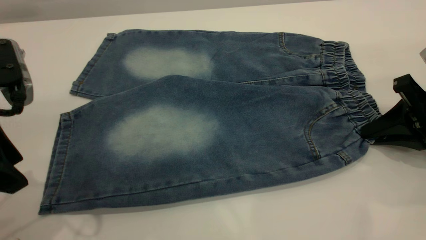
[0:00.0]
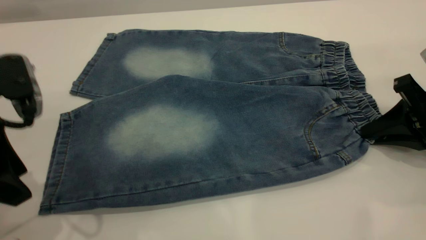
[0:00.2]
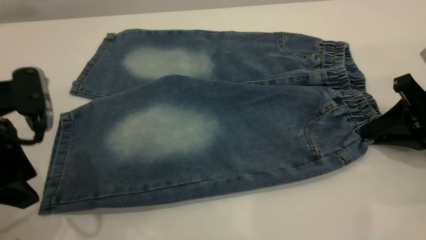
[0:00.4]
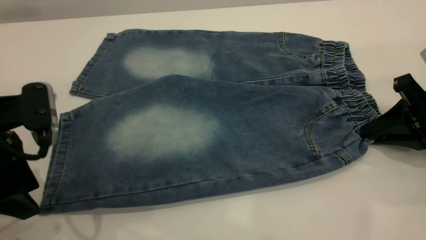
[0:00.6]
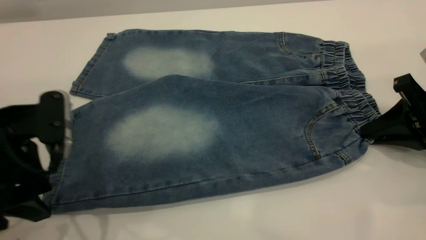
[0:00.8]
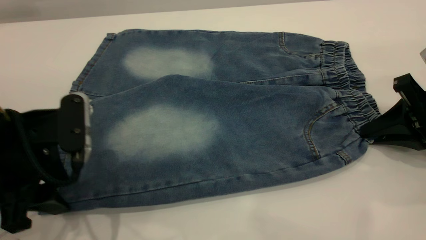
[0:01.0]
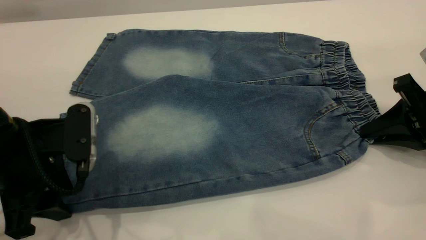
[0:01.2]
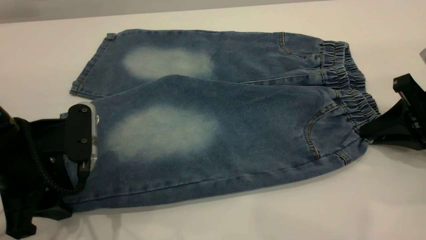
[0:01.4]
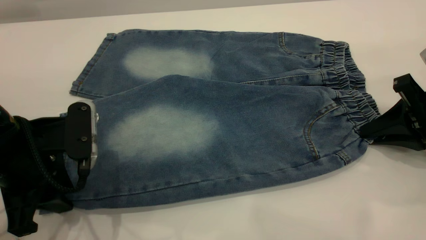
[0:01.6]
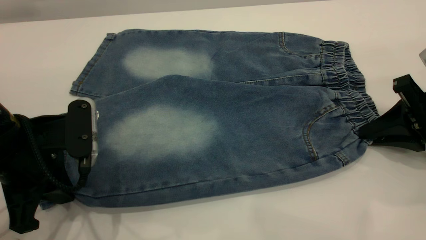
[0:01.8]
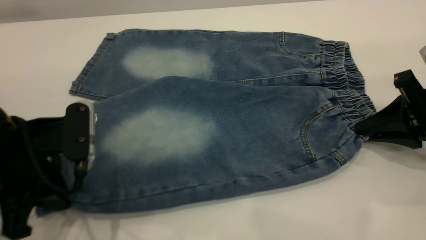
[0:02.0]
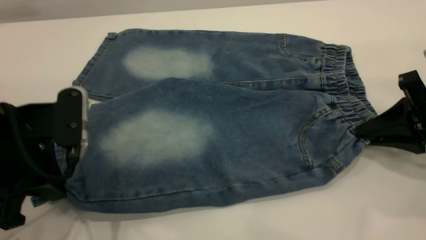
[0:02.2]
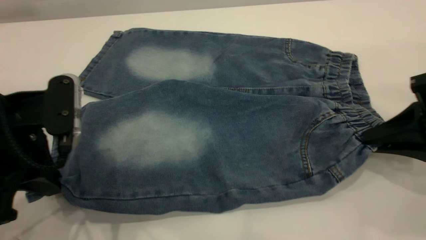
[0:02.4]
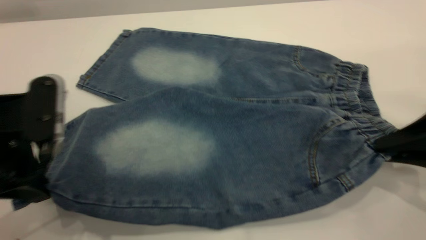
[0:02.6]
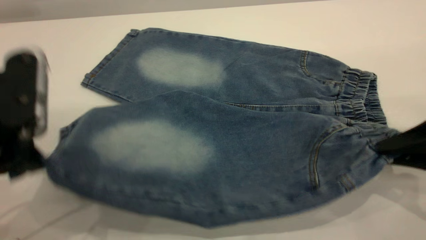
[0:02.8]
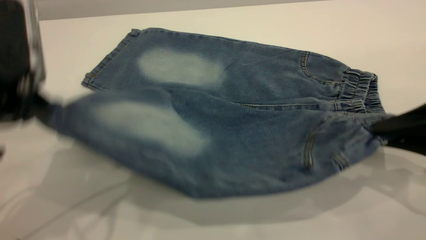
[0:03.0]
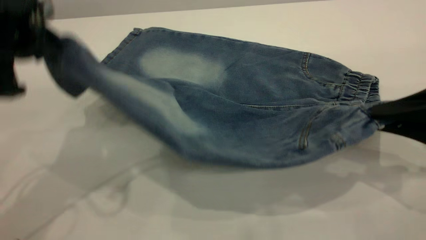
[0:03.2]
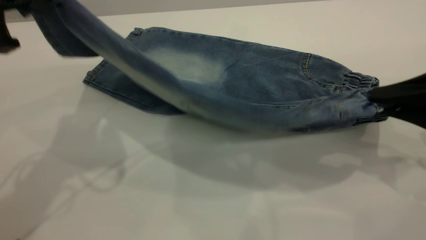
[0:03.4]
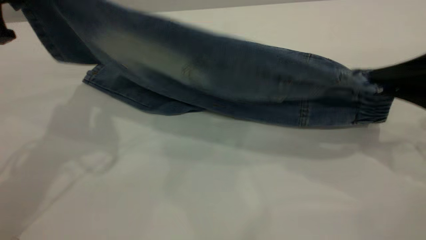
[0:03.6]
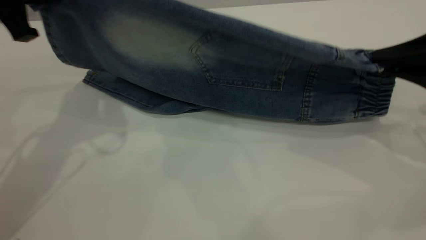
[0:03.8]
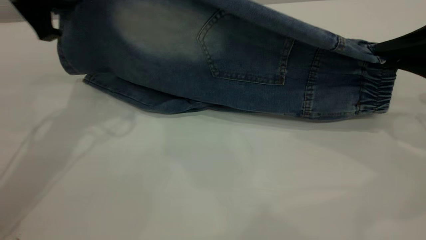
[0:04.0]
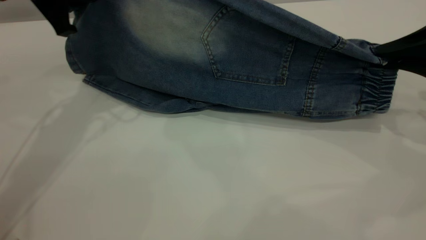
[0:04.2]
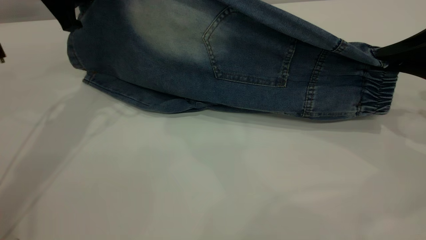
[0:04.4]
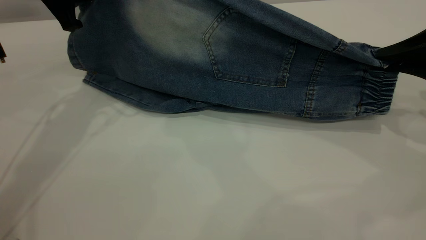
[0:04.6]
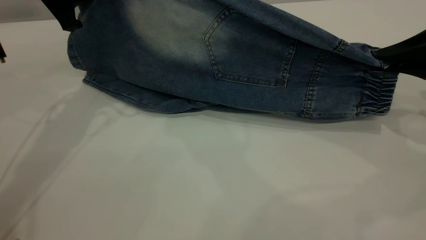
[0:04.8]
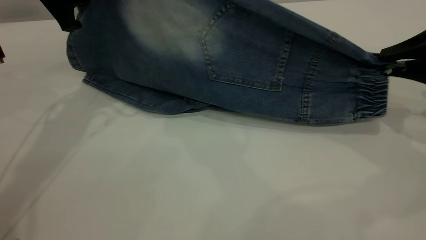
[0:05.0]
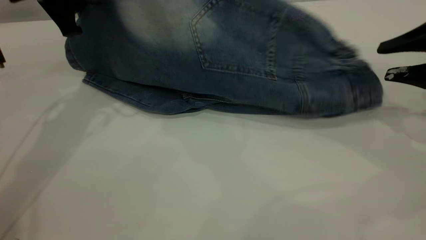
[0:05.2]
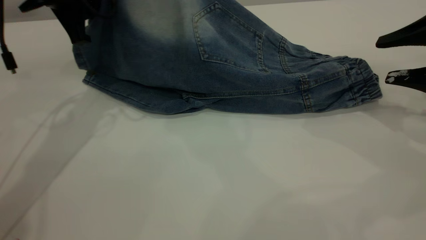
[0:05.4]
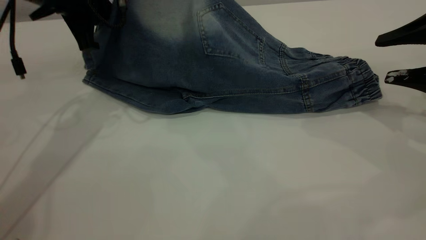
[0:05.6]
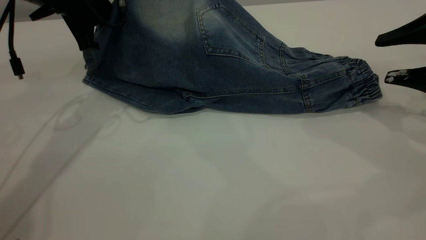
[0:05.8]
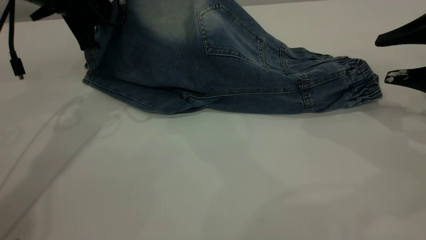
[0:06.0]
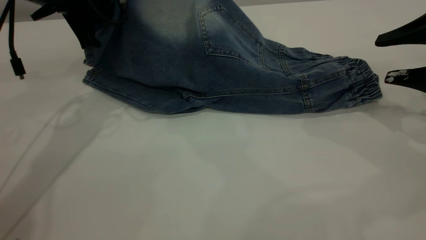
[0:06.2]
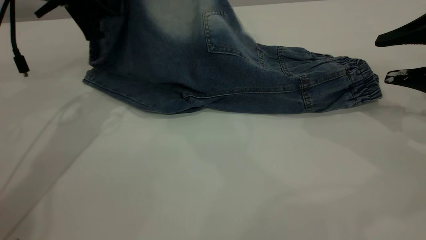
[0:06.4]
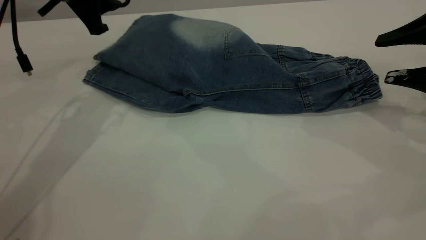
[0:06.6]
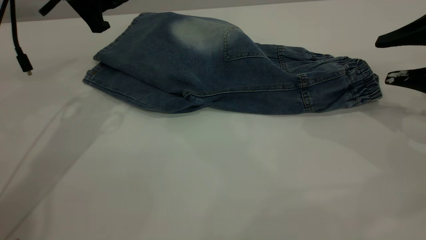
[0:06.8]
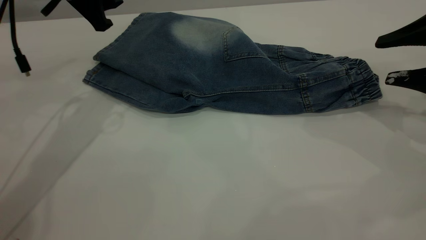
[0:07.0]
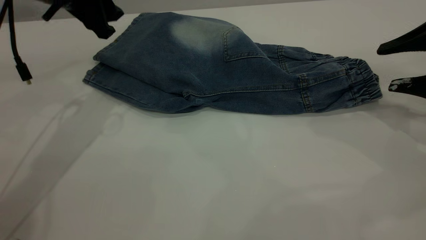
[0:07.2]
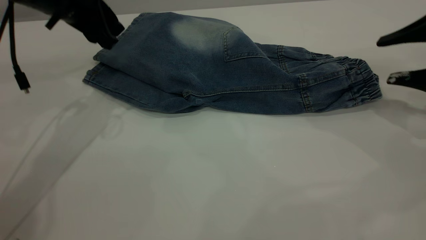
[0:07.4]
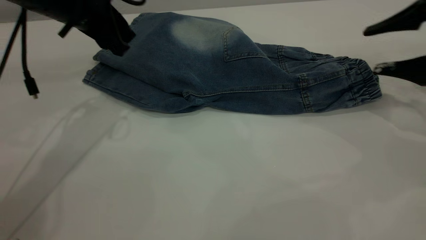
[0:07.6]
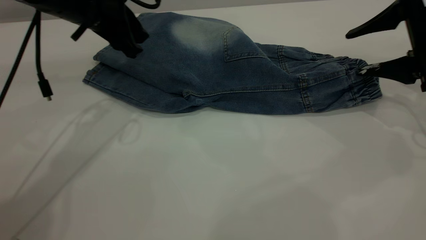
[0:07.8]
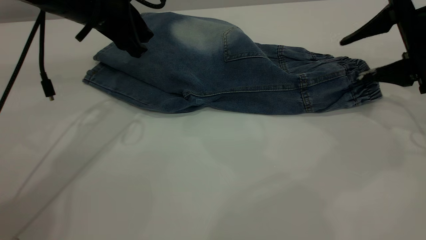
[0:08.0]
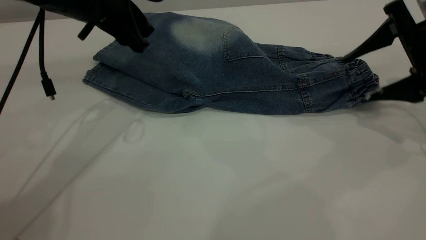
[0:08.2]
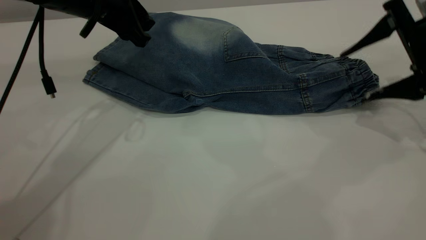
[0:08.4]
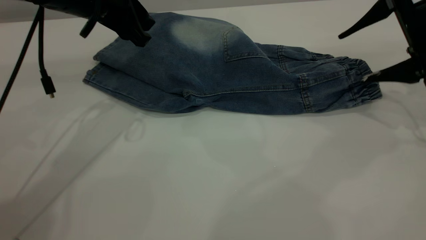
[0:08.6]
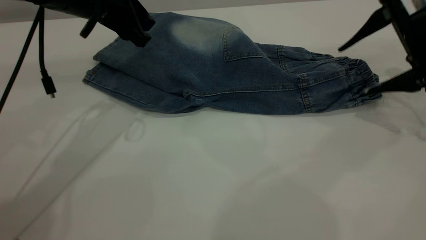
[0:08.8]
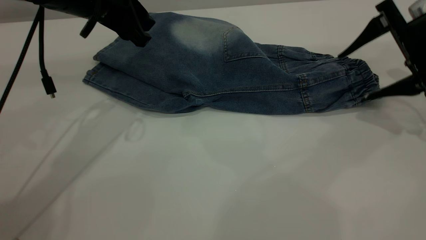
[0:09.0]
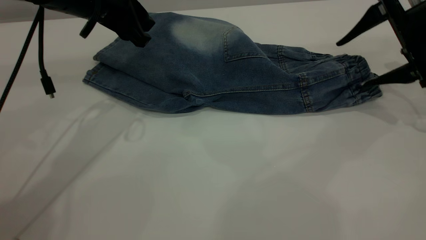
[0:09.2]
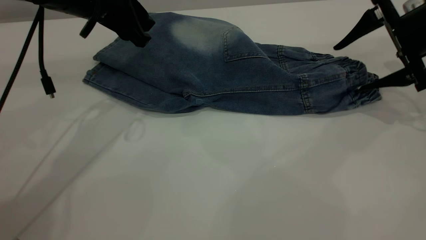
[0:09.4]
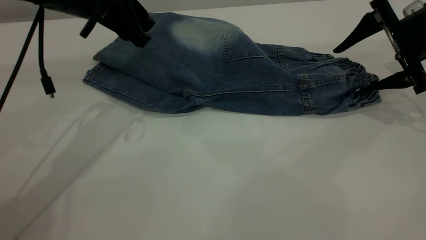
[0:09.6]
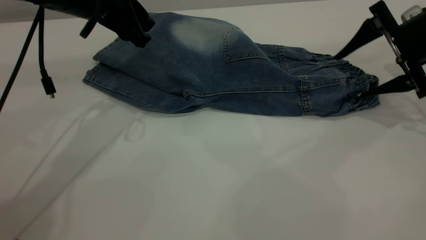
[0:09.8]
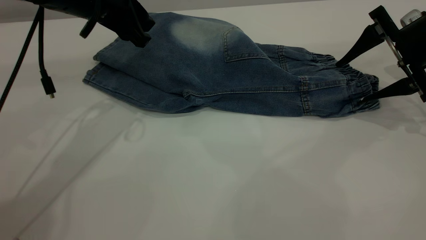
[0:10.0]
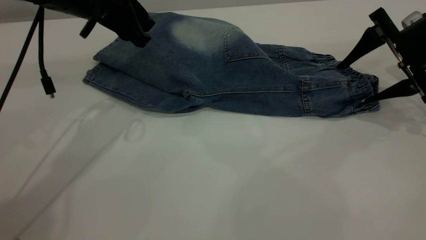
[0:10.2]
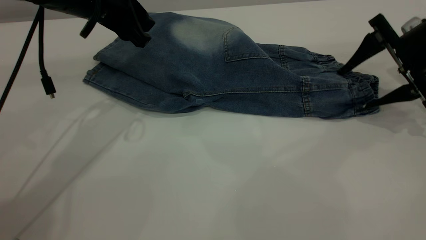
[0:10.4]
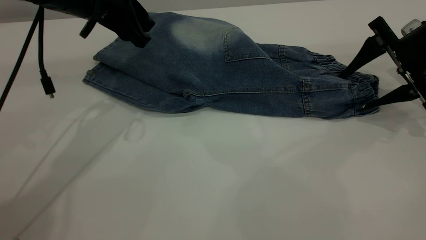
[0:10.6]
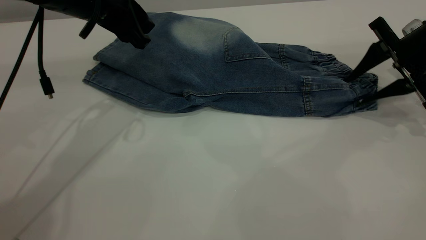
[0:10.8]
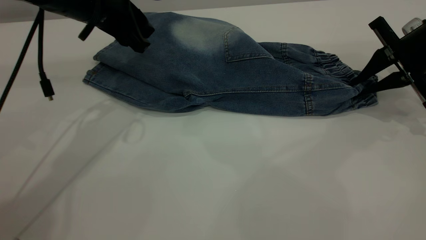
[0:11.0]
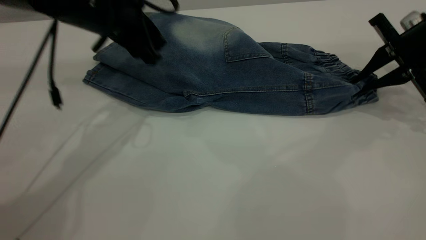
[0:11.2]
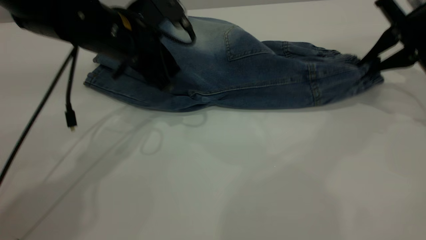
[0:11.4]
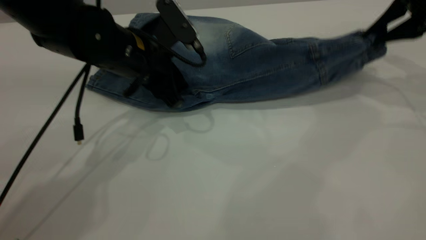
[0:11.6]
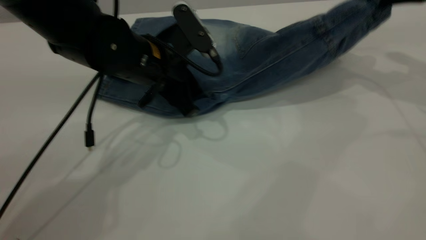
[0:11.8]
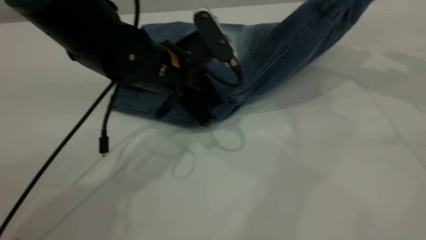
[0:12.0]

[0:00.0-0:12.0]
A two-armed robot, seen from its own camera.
Step, 0:00.0 to 0:07.6: Fold the bottom of the pants upward.
0:00.0 to 0:01.6: The left gripper travels downward by approximately 10 cm, and closes up.
0:01.6 to 0:03.0: The right gripper travels backward and upward by roughly 10 cm, while the left gripper moves upward, some 10 cm, and closes.
0:03.0 to 0:04.4: The right gripper shifts some 10 cm forward. The left gripper is displaced forward by some 20 cm.
0:04.4 to 0:06.0: The right gripper opens its fingers.
0:06.0 to 0:07.6: The left gripper opens its fingers.
0:09.0 to 0:10.4: The grippers move only a little.
0:10.4 to 0:12.0: The left gripper heads to the right, downward and backward, covering roughly 15 cm. The right gripper shifts roughly 15 cm upward, and closes.

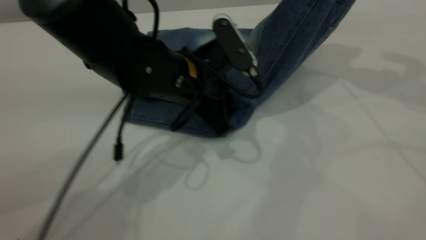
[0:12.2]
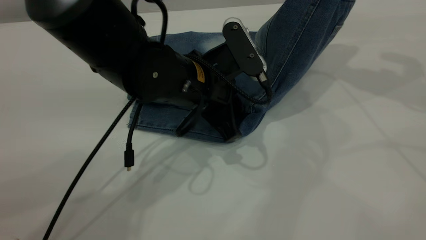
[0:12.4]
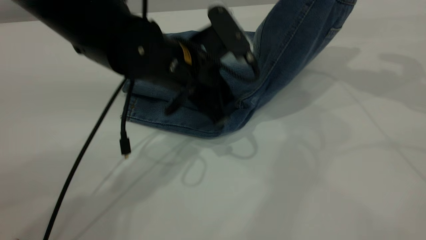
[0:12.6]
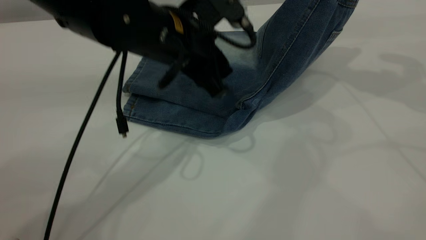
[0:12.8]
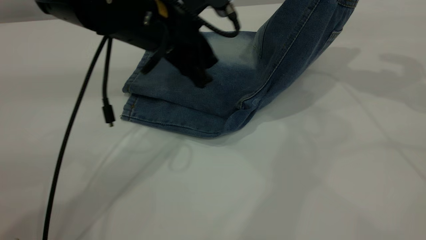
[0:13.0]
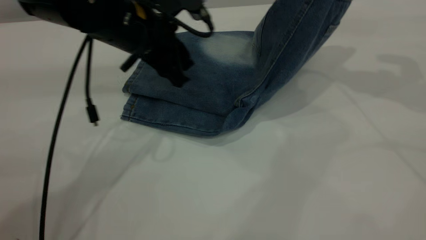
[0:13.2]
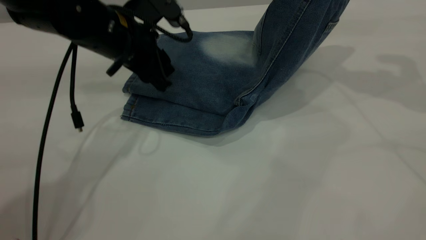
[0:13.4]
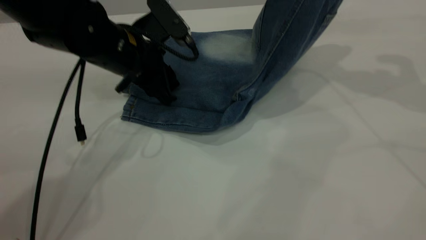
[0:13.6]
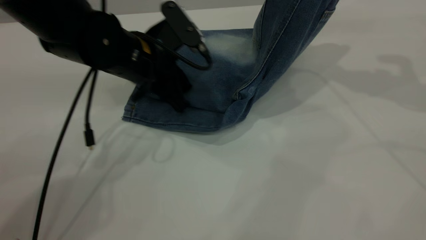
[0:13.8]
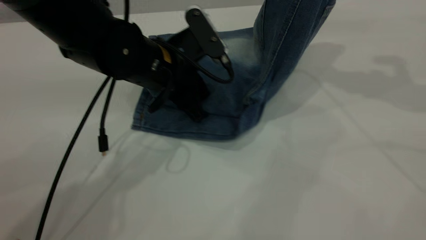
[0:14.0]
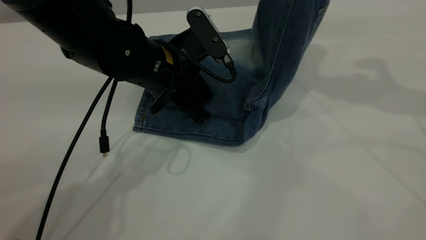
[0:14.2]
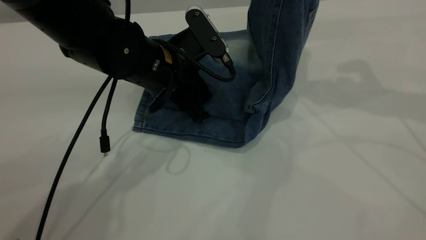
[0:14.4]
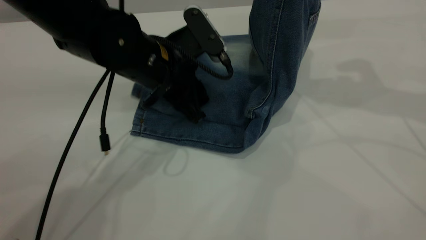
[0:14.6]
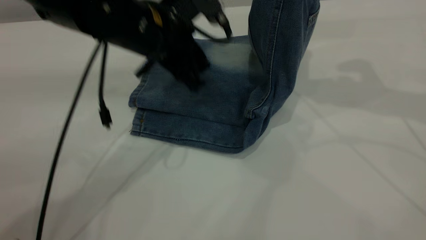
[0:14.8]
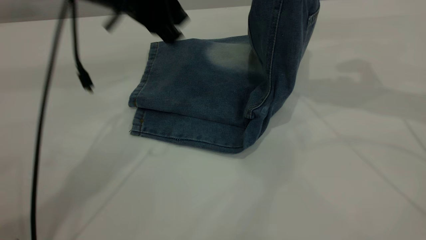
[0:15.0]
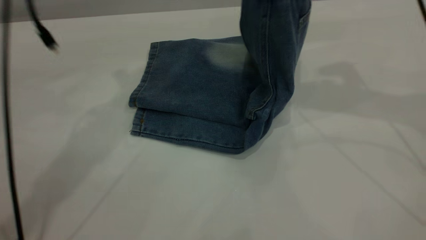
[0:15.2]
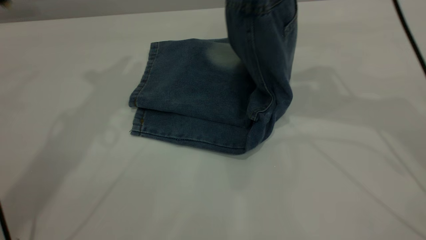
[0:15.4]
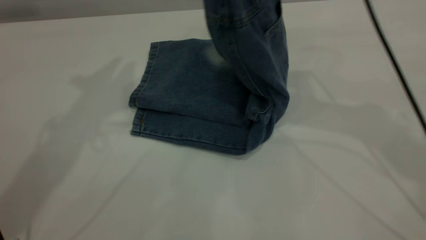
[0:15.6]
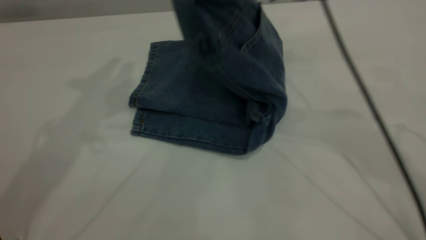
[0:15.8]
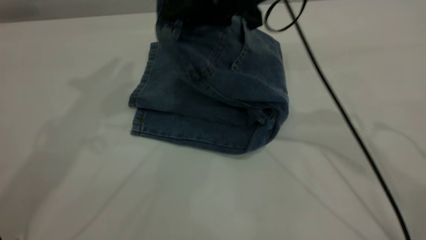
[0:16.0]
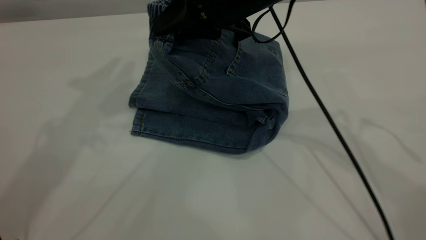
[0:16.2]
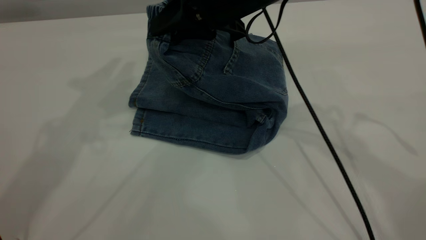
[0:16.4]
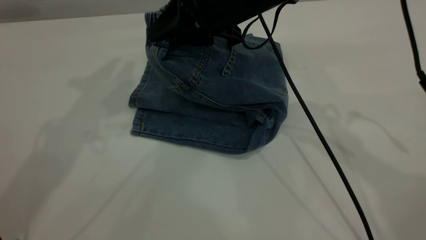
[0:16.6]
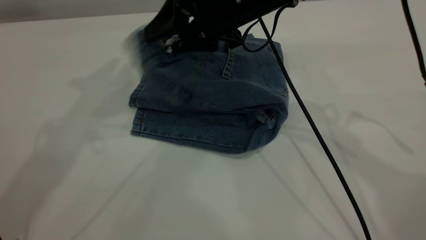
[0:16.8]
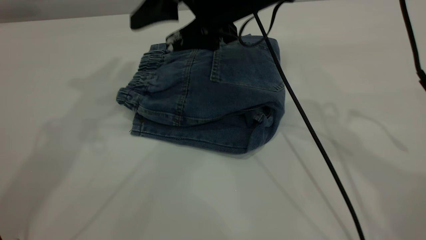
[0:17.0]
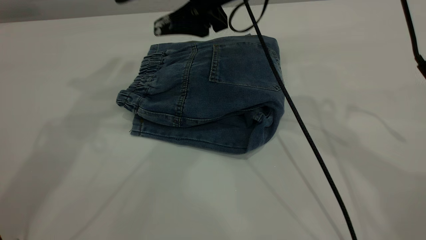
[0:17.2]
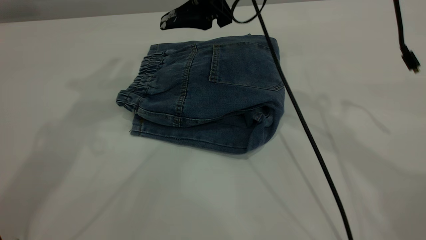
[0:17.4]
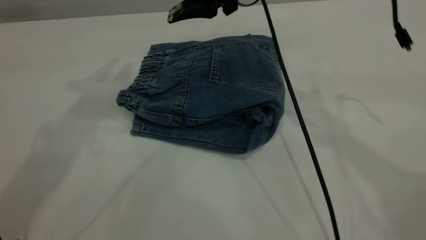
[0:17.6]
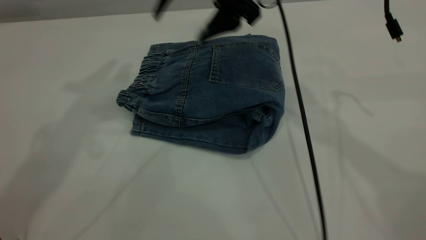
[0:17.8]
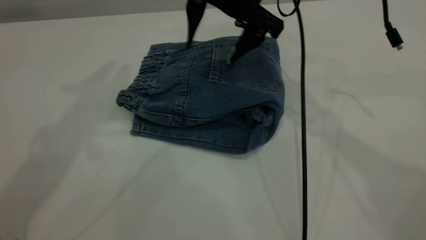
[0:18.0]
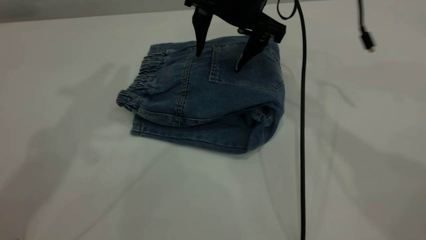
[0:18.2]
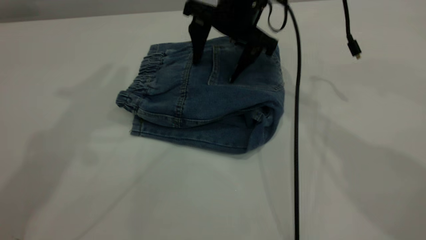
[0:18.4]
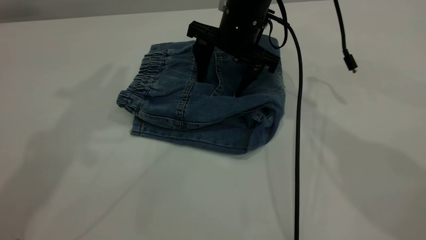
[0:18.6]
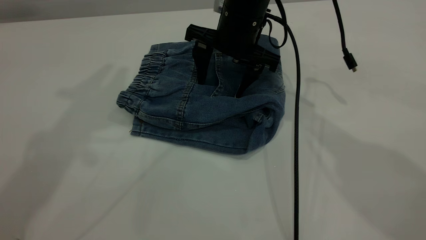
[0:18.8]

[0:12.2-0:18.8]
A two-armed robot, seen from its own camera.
Step, 0:12.2 to 0:17.6: Fold your pants from right to left.
0:12.2 to 0:13.8: The left gripper moves to the left, approximately 5 cm.
0:13.8 to 0:15.4: The right gripper shifts some 15 cm to the left, while the left gripper travels upward and to the left by some 25 cm.
0:15.4 to 0:17.2: The left gripper ends up some 5 cm from where it was. The right gripper goes roughly 15 cm to the left and downward, and opens.
0:17.2 to 0:18.8: The right gripper is displaced downward by approximately 10 cm.
